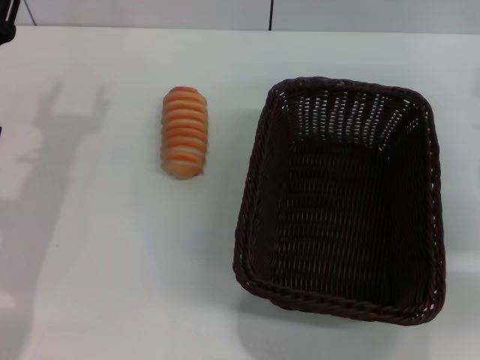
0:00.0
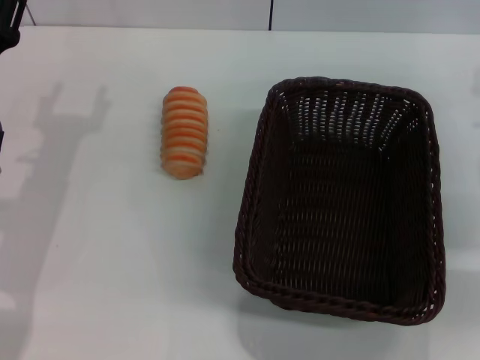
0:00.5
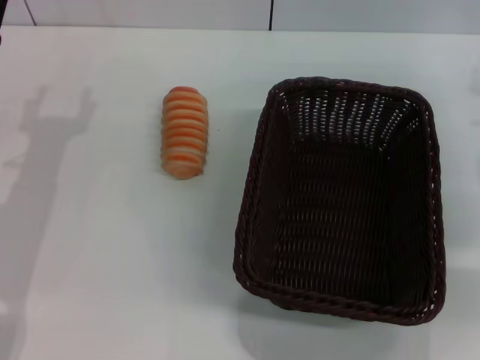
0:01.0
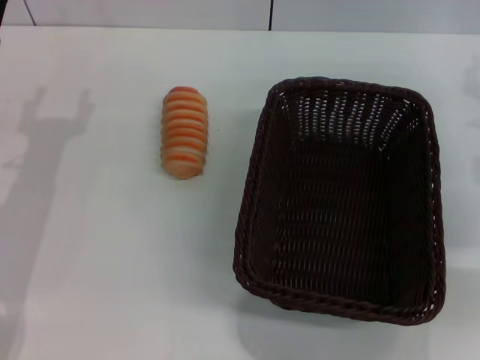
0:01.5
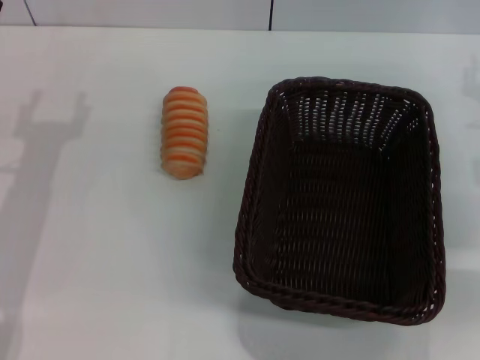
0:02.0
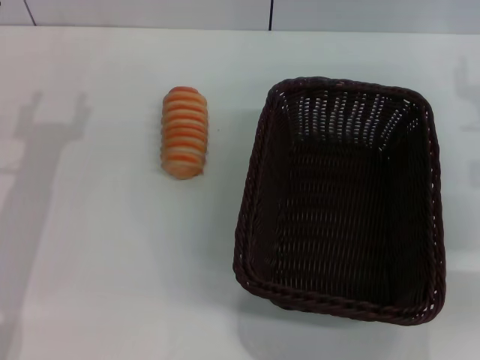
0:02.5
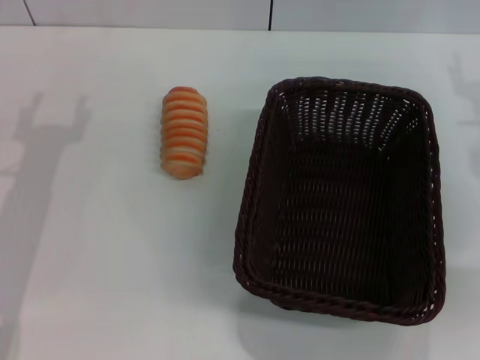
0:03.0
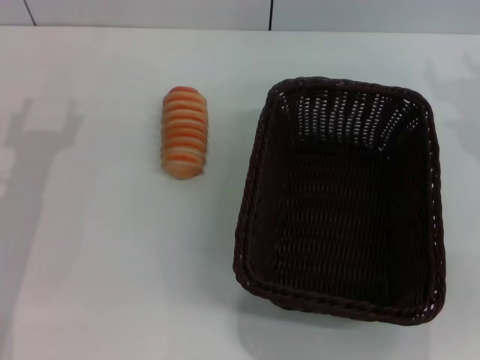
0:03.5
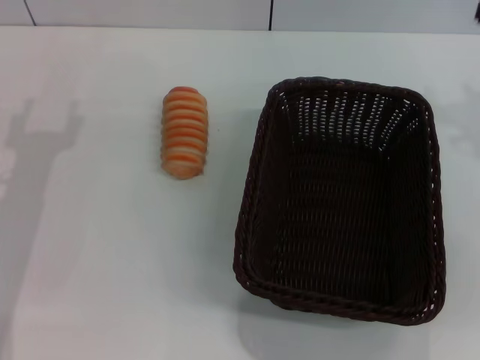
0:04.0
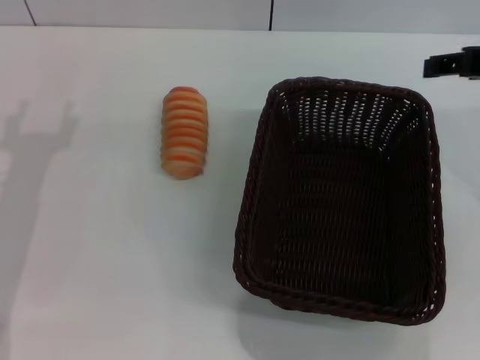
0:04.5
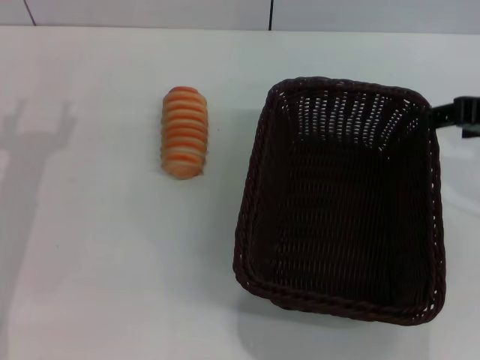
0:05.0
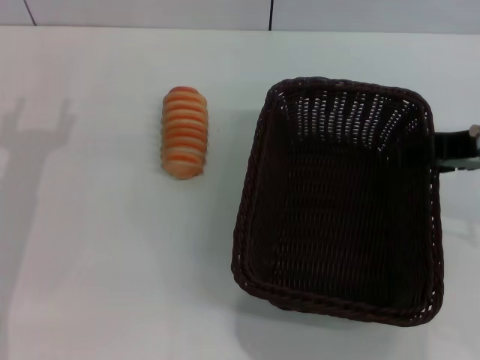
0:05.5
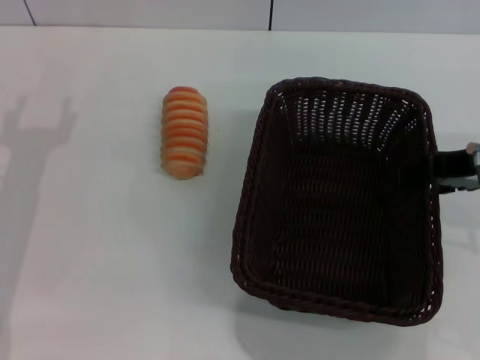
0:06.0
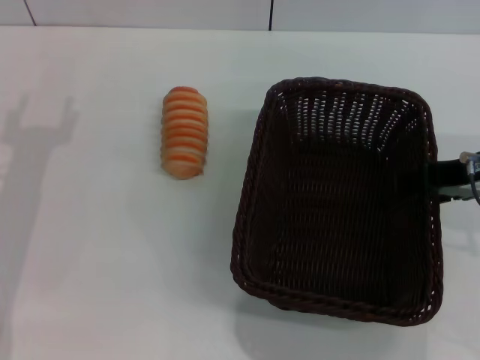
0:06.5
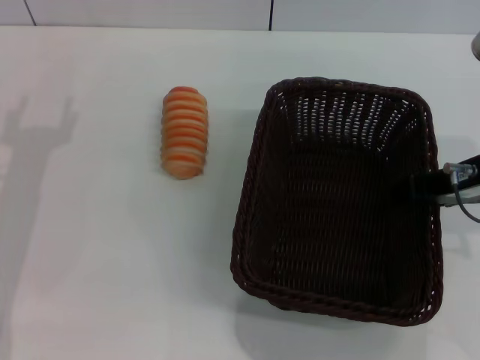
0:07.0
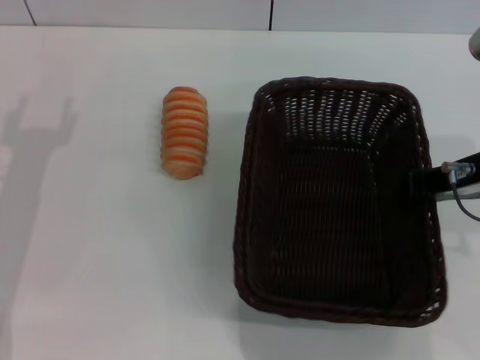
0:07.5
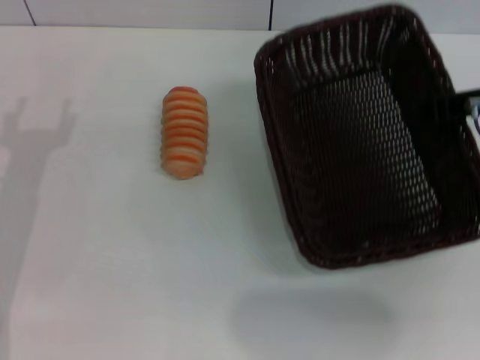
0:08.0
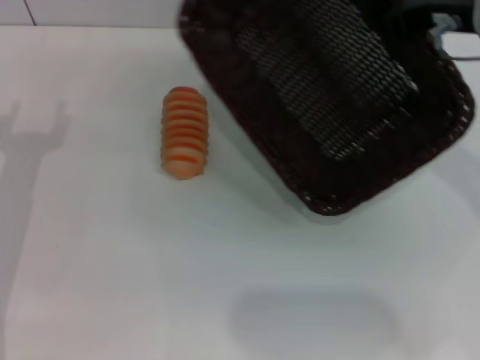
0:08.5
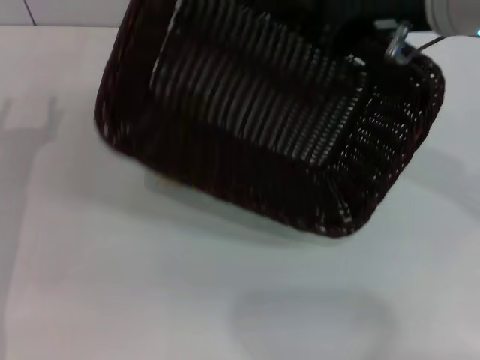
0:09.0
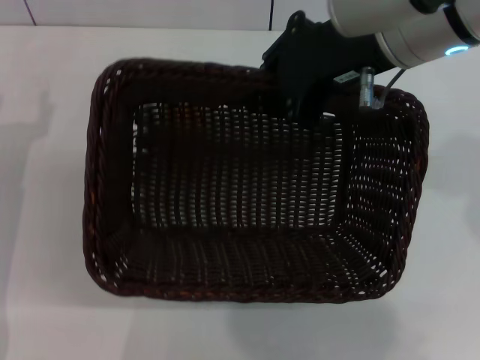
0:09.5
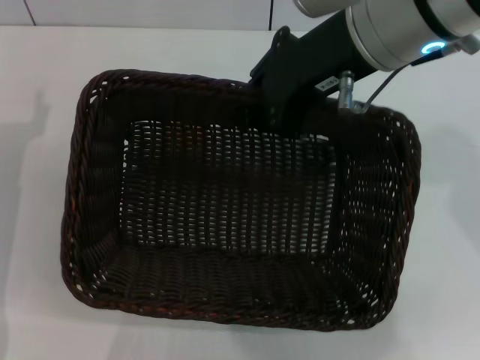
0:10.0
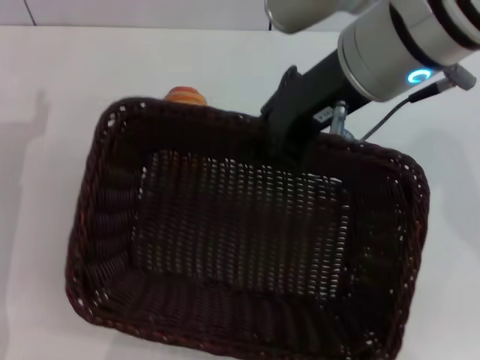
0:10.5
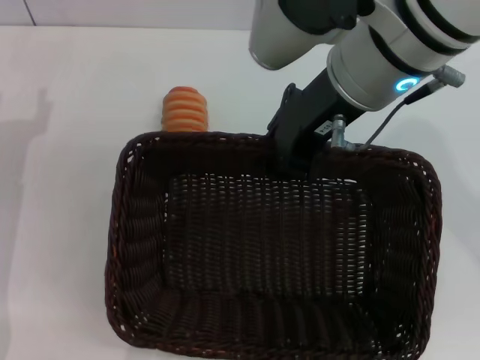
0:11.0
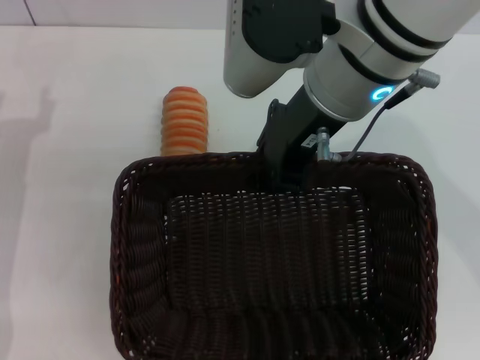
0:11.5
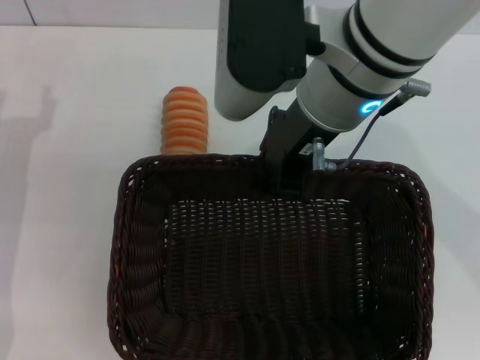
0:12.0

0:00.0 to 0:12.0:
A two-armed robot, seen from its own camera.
Step, 0:00.0 to 0:07.5: Pick up the dark basket with the right gripper.
0:04.0 to 0:06.0: The right gripper goes about 5 cm to the left.
0:06.0 to 0:08.0: The right gripper closes its fingers.
0:08.0 to 0:10.0: The right gripper heads to the left and upward, covering some 15 cm.
0:10.0 to 0:12.0: The right gripper changes place by about 5 cm.

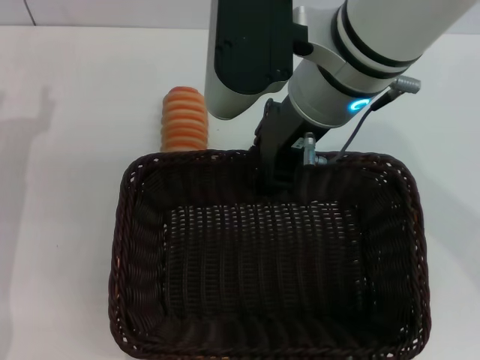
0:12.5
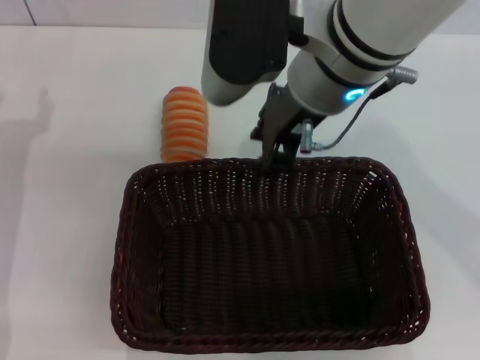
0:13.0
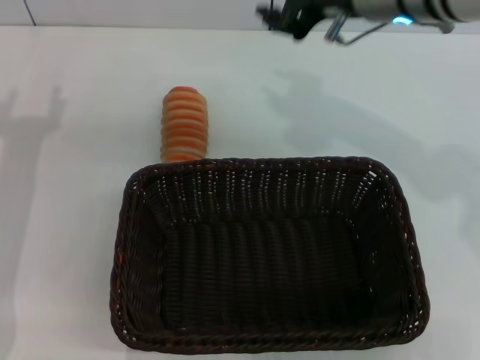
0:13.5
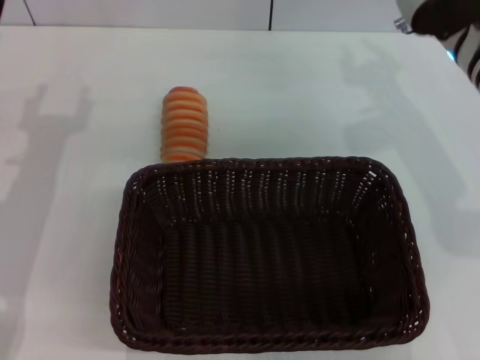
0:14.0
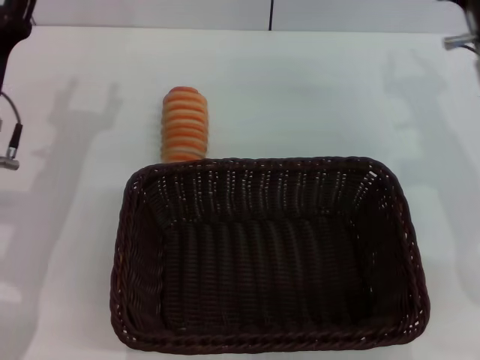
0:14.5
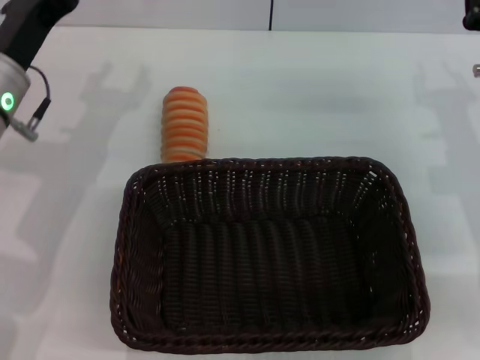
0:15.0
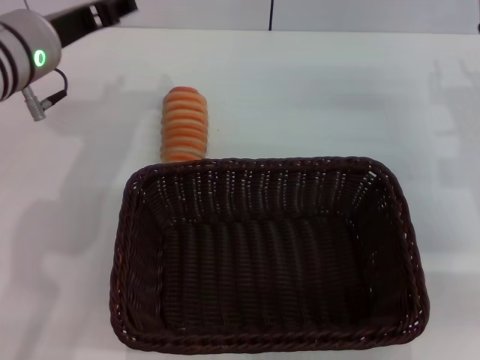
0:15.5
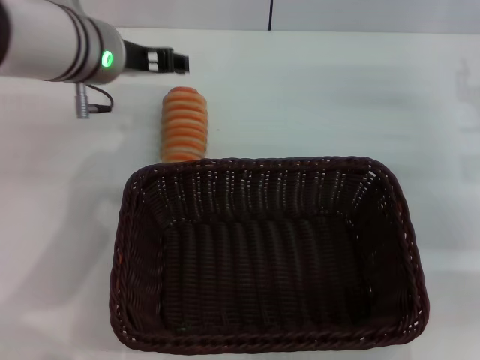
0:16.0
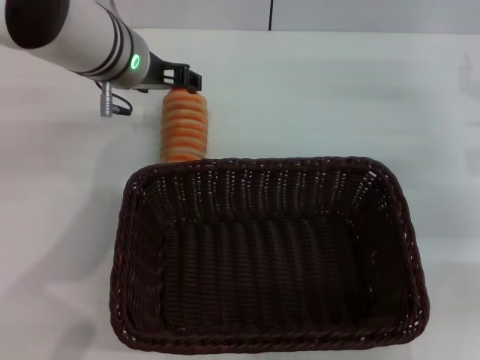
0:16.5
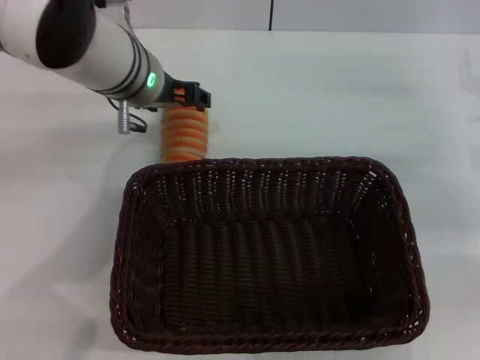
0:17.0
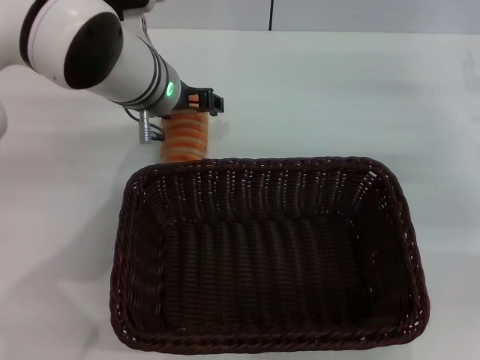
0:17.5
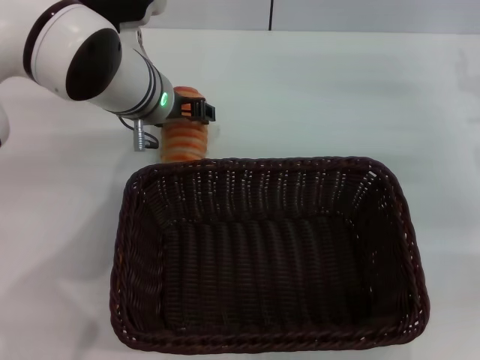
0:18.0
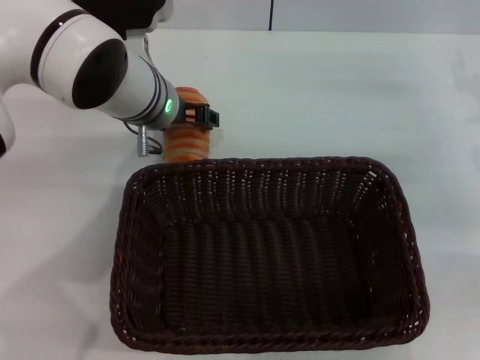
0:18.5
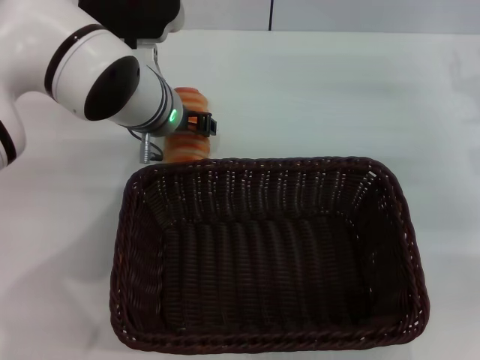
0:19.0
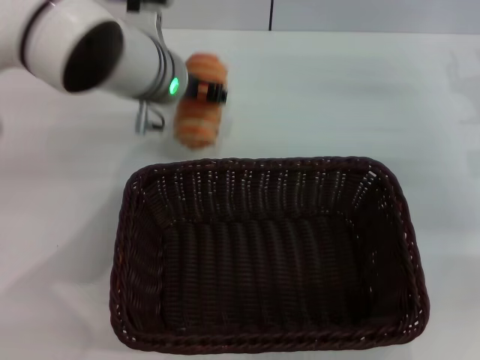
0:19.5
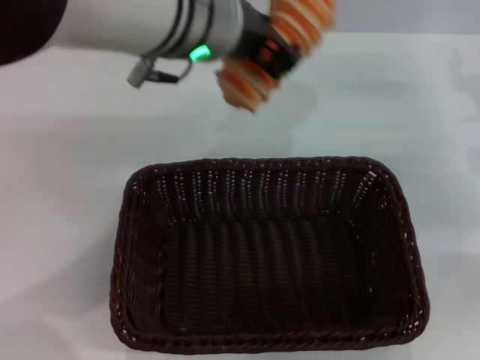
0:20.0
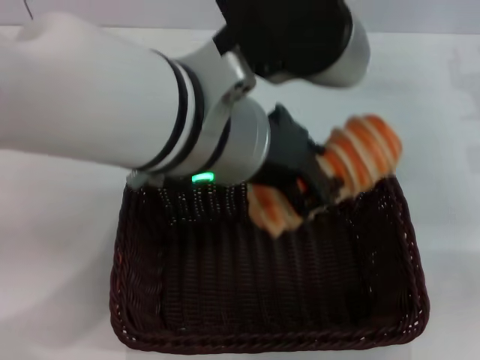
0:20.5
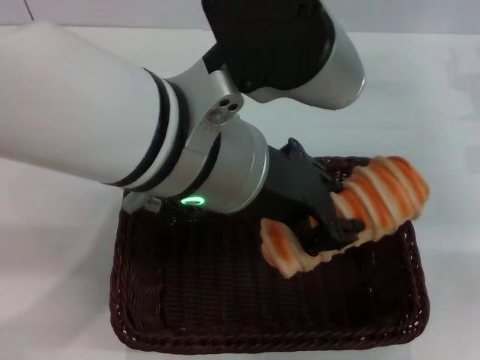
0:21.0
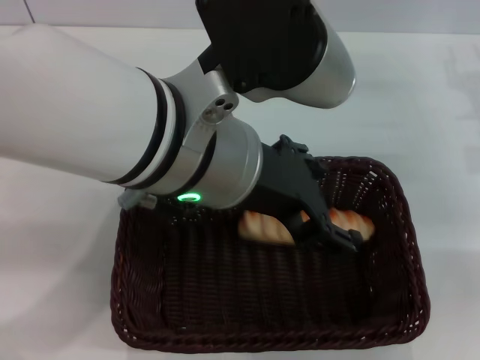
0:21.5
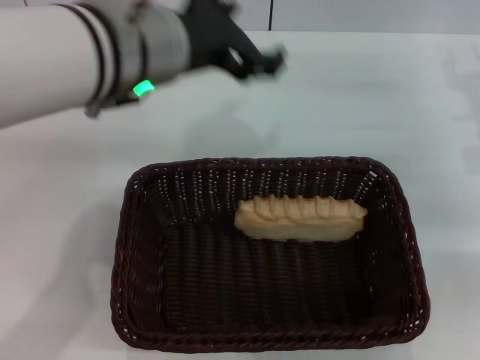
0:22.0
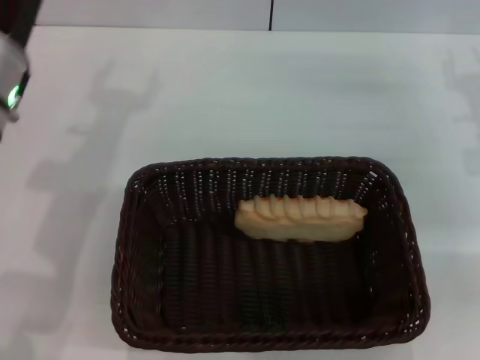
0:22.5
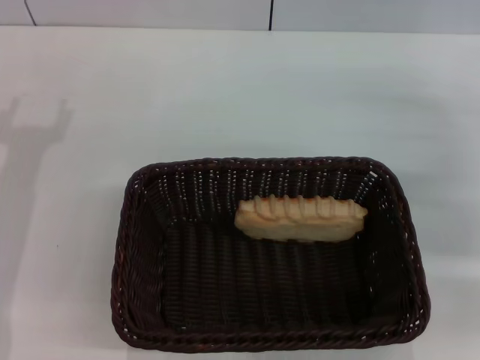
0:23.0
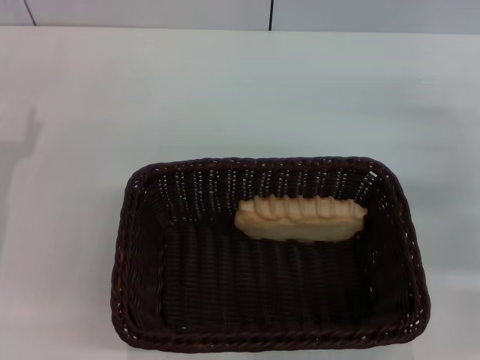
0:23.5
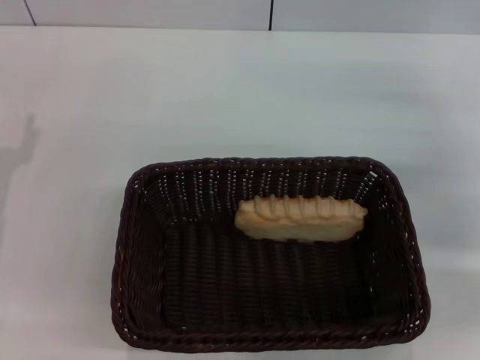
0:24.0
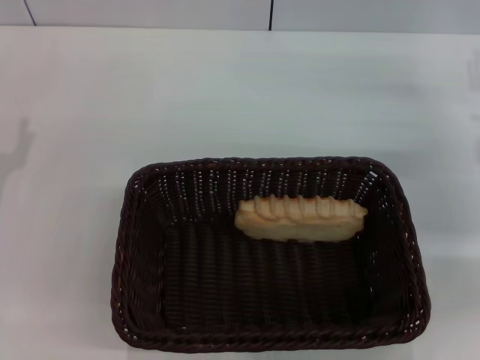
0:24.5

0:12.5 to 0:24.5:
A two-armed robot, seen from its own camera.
Step, 0:13.5 to 0:19.5: Pick up the long bread with the left gripper.
Step, 0:20.0 to 0:21.5: Place the long bread into the dark basket with the left gripper.
0:12.5 to 0:14.5: The right gripper goes about 20 cm to the right and downward.
0:14.5 to 0:16.5: The right gripper is displaced to the right by roughly 10 cm. Meanwhile the left gripper moves to the right, forward and upward, some 20 cm.
0:16.5 to 0:18.5: The left gripper shifts by about 5 cm.
0:18.5 to 0:20.5: The left gripper heads backward, upward and to the right, covering about 20 cm, and closes.
0:20.5 to 0:22.5: The left gripper goes approximately 20 cm to the left and downward, and opens up.
0:22.5 to 0:24.5: The left gripper moves to the left, downward and backward, some 15 cm.

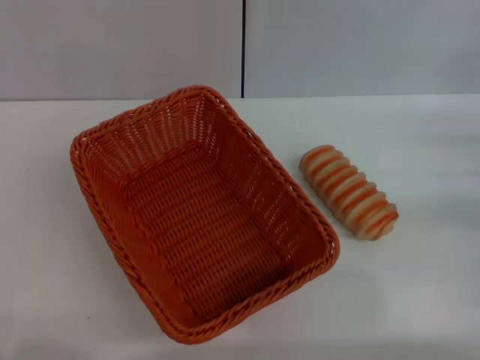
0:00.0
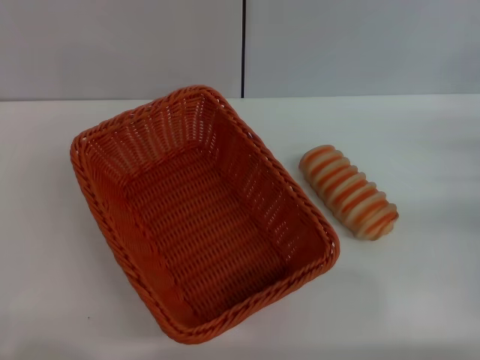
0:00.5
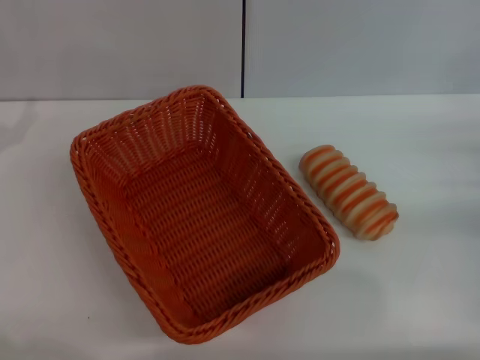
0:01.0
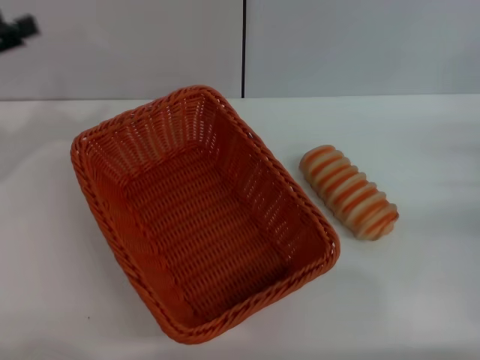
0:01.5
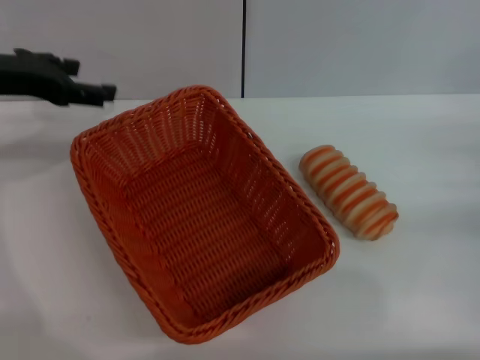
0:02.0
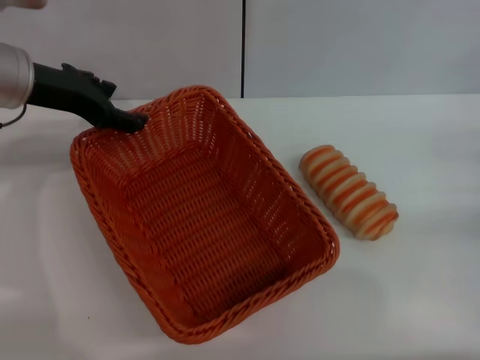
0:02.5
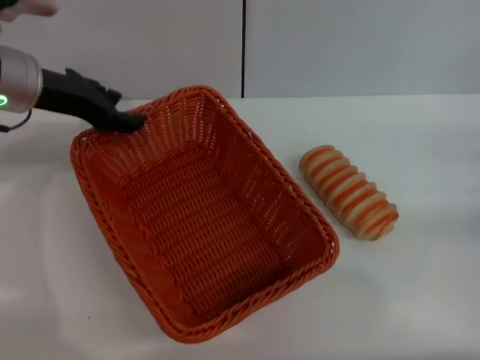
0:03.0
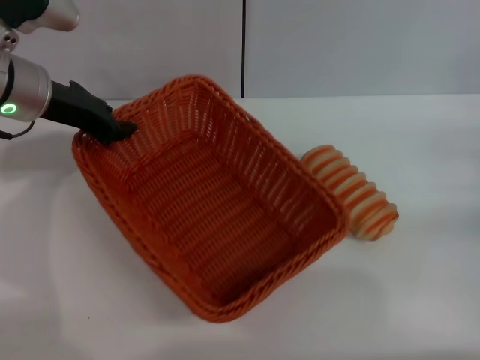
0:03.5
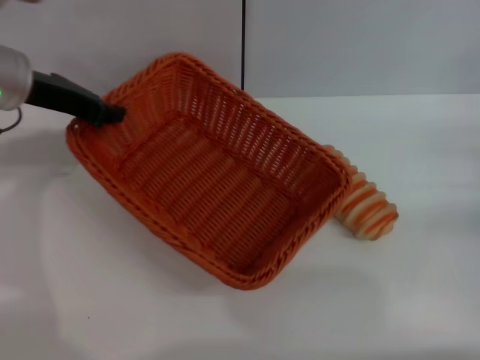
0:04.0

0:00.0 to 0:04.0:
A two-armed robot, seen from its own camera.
Step, 0:00.0 to 0:04.0: Pick up the light basket with the left gripper.
0:00.0 to 0:02.0: The left gripper travels upward and forward by about 20 cm.
0:02.0 to 0:04.0: The left gripper closes its fingers.
